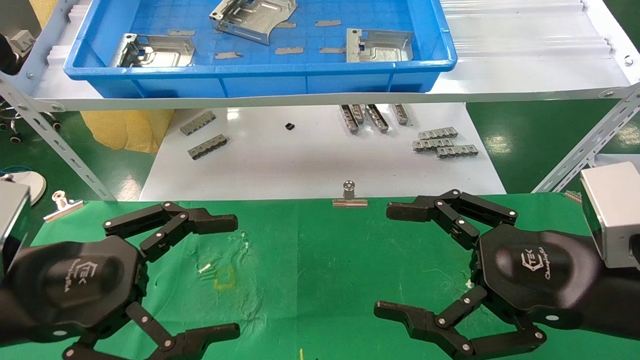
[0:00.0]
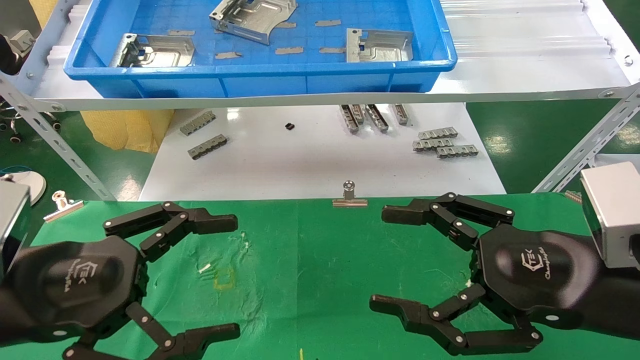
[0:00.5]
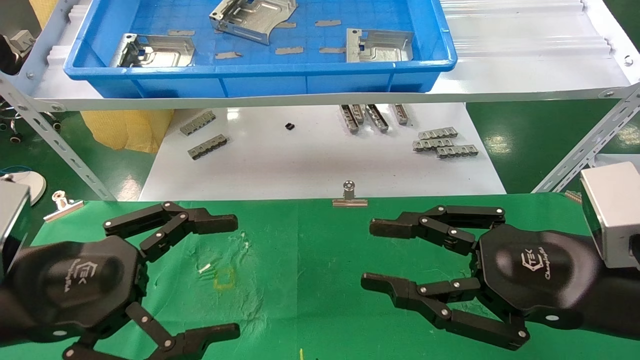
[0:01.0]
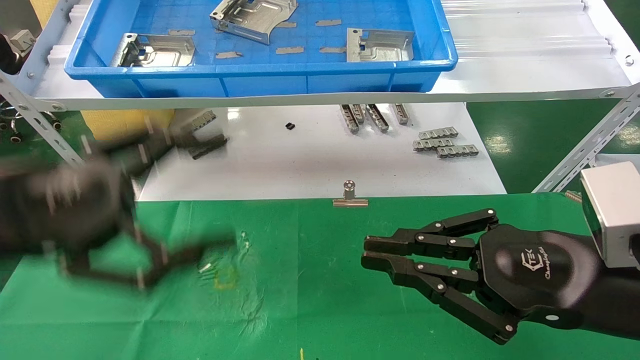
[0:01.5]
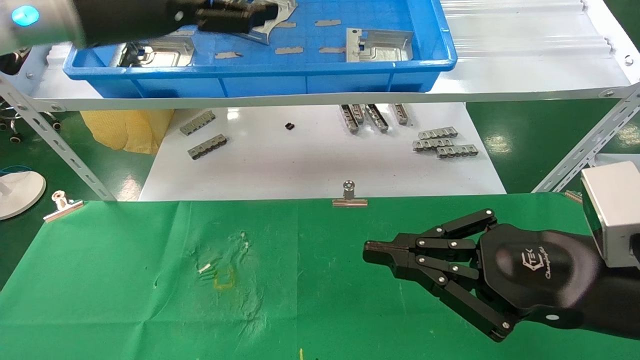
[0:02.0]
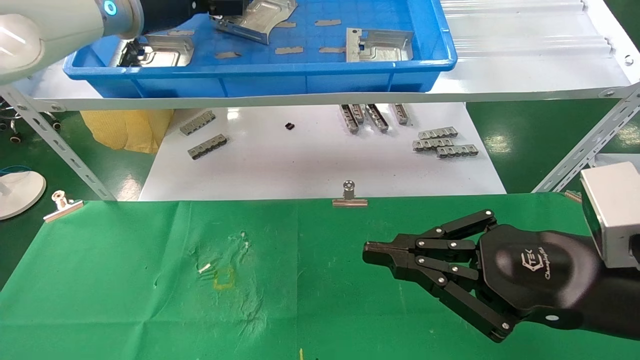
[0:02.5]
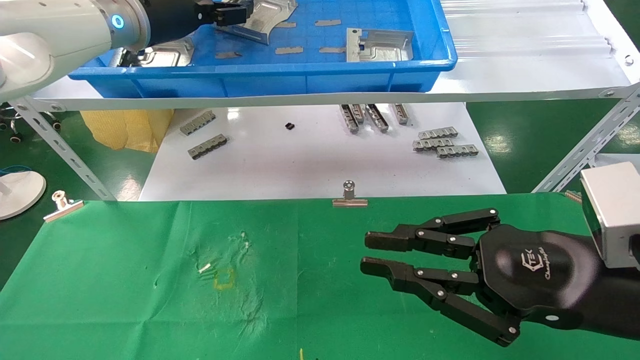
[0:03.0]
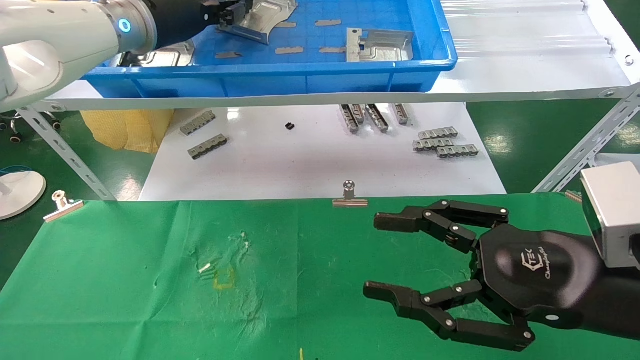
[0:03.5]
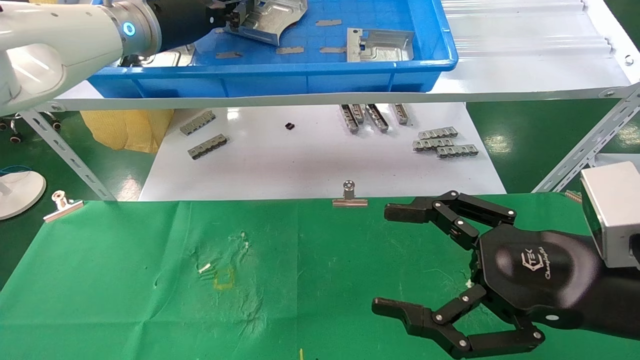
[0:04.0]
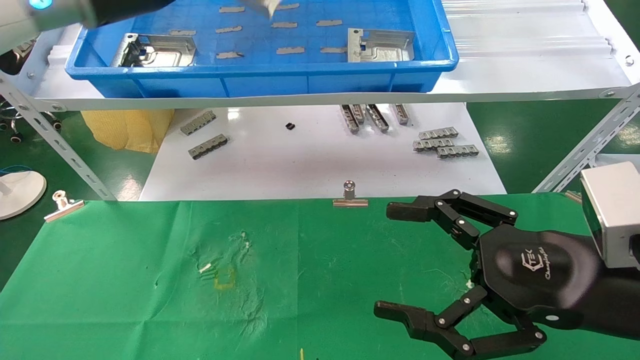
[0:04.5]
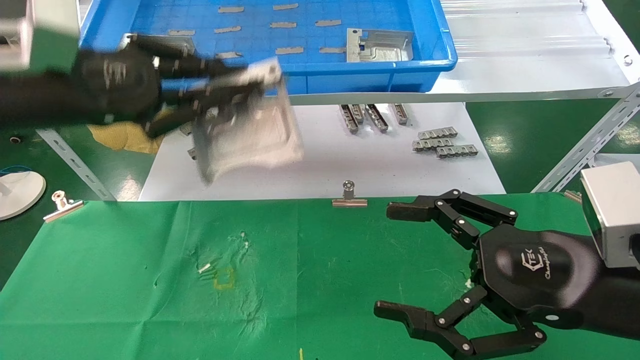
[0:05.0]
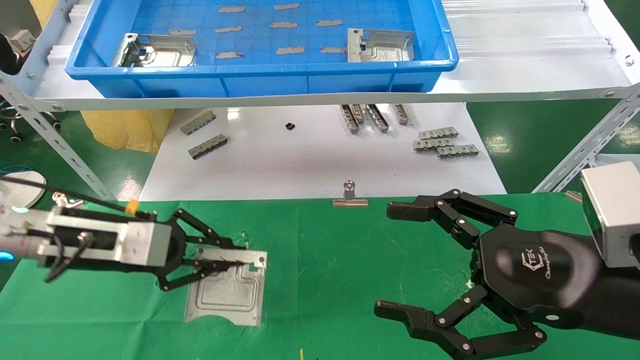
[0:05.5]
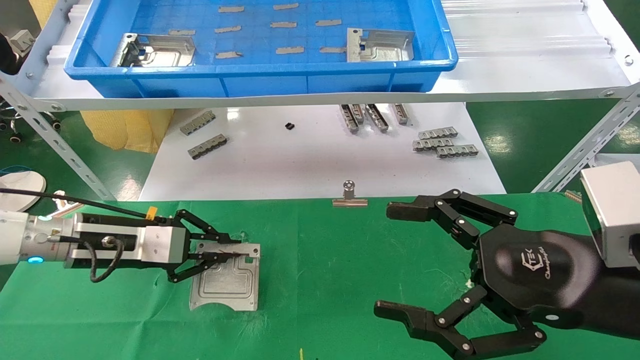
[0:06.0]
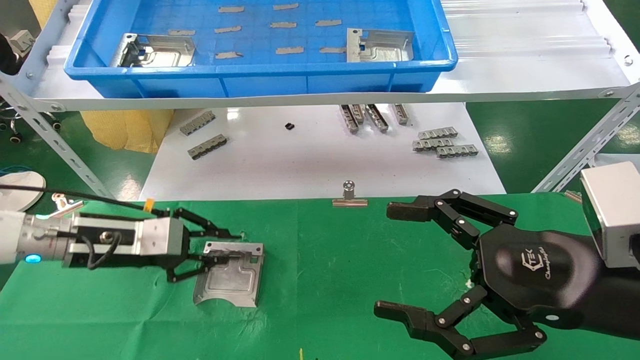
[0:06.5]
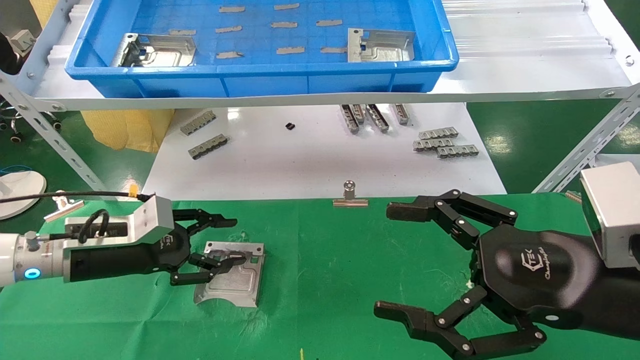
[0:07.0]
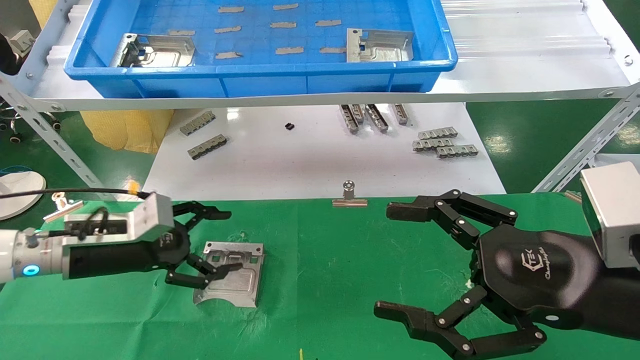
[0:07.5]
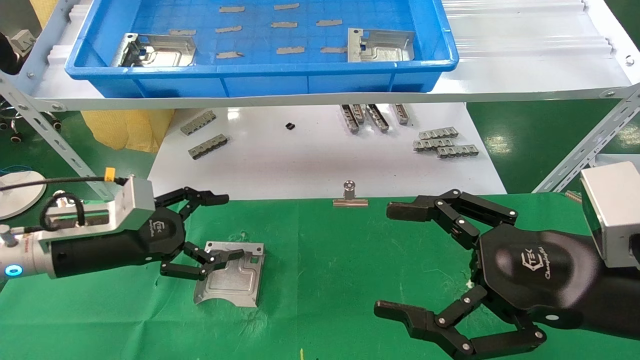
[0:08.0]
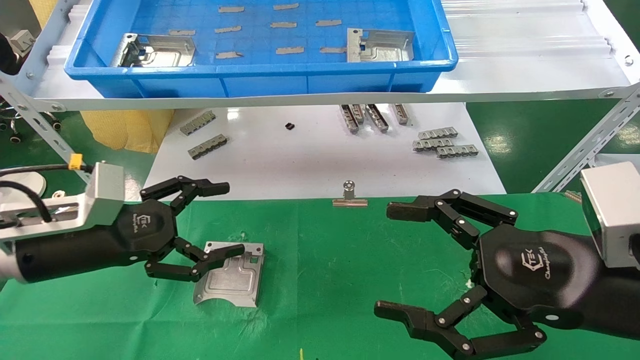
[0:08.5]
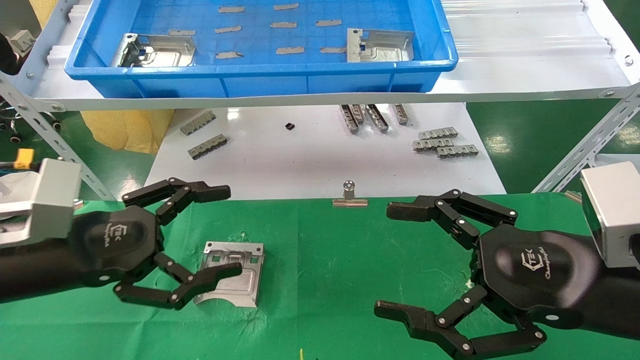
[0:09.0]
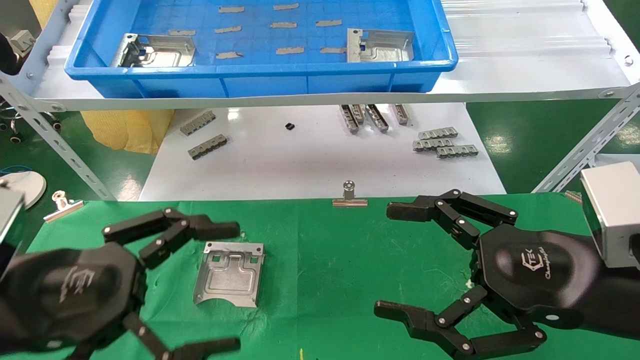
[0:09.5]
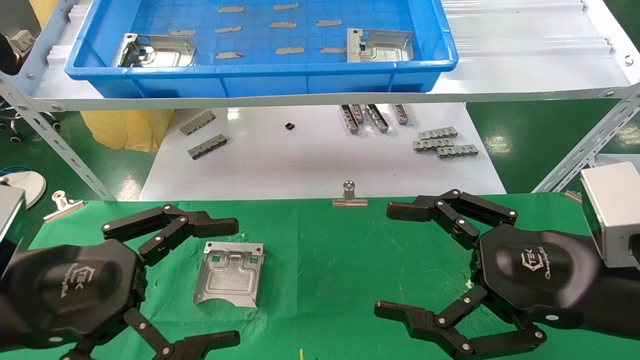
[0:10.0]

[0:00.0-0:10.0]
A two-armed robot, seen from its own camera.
Task of the whole recording: use the mechanical arm to pick up the parts and place them on the table.
Step, 0:02.0 to 0:03.5: Pick up the hard drive bracket from the feeding area.
Step, 0:04.0 to 0:07.0: Place the hard drive bracket into the box.
0:00.0 to 0:02.0: The right gripper closes up; the left gripper is displaced upward and forward by approximately 30 cm.
0:02.0 to 0:04.0: The right gripper opens. Meanwhile the left gripper is displaced forward by about 5 cm, and closes up.
0:04.0 to 0:06.0: The left gripper heads downward, covering some 25 cm.
0:06.0 to 0:08.0: The left gripper opens.
0:08.0 to 0:10.0: The left gripper is displaced backward by some 15 cm.

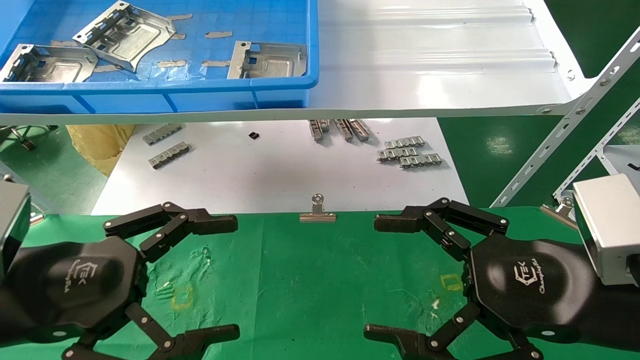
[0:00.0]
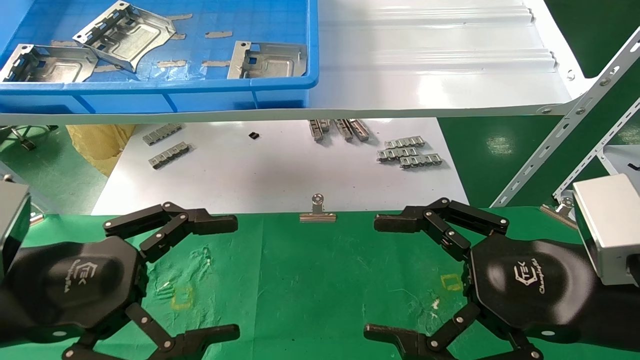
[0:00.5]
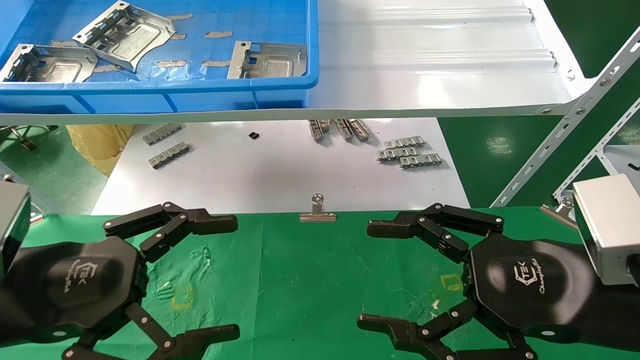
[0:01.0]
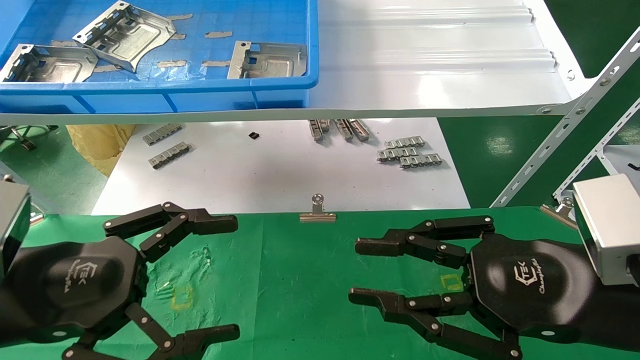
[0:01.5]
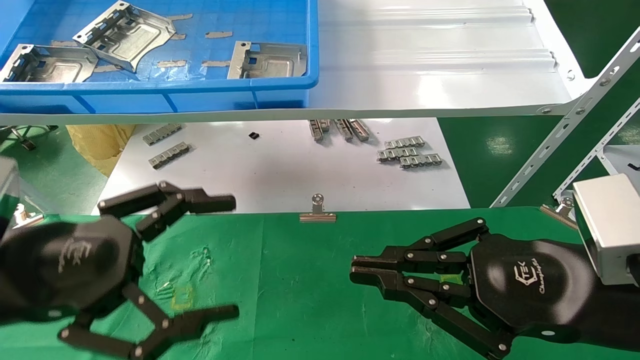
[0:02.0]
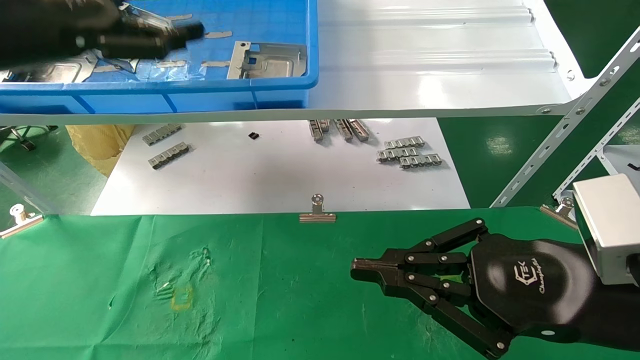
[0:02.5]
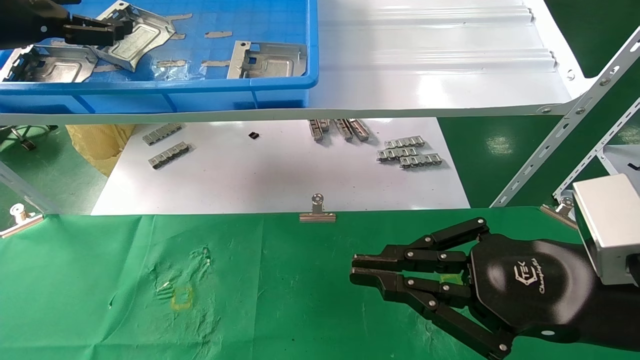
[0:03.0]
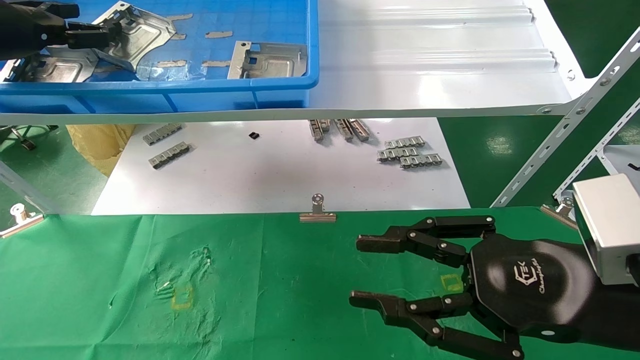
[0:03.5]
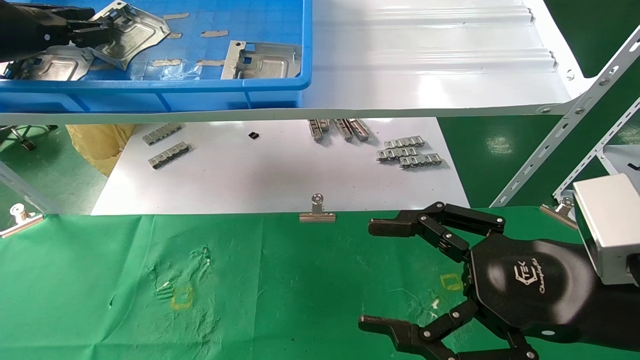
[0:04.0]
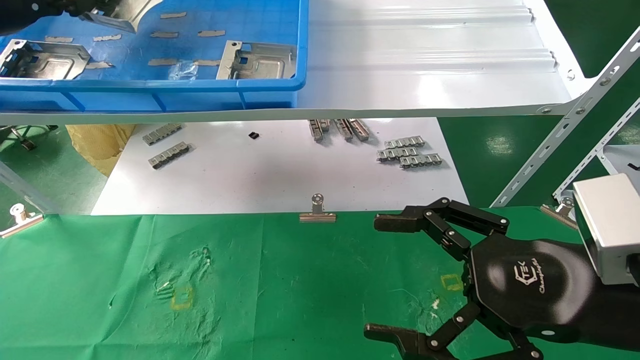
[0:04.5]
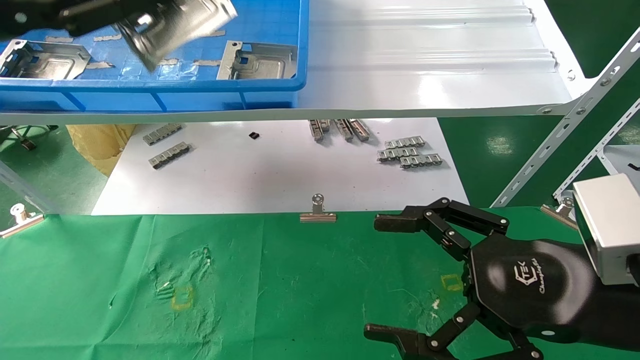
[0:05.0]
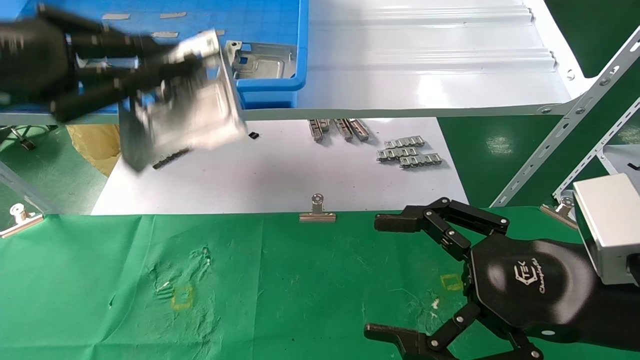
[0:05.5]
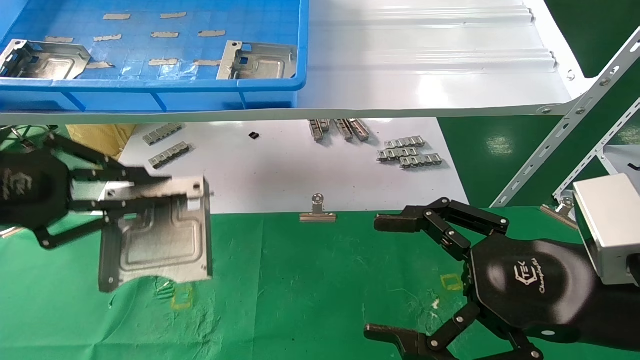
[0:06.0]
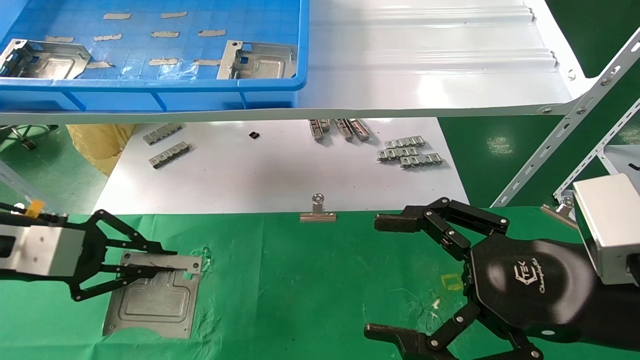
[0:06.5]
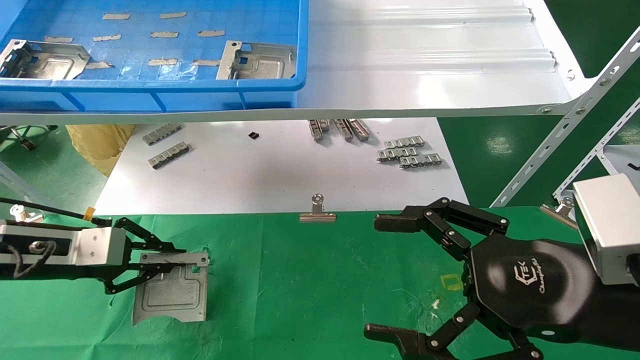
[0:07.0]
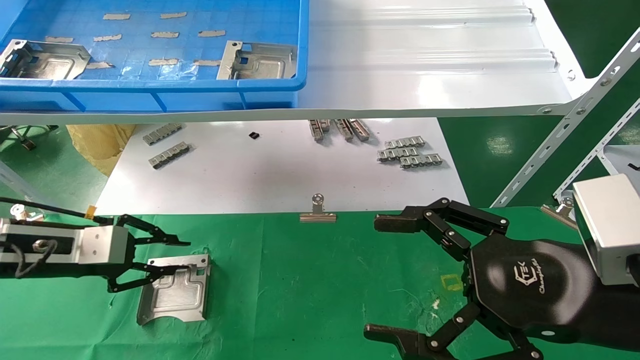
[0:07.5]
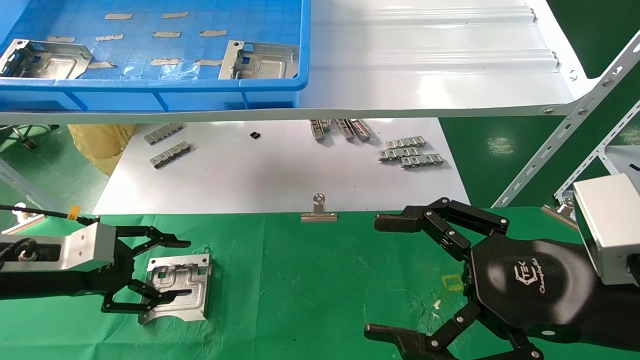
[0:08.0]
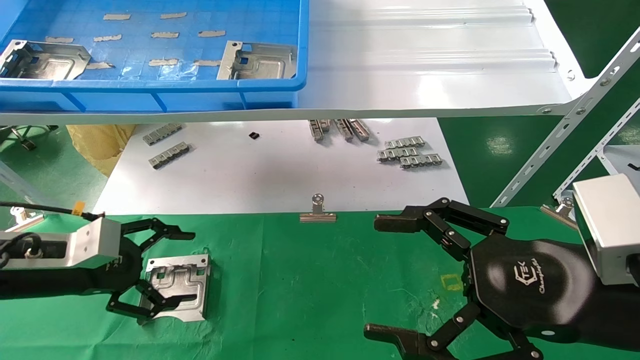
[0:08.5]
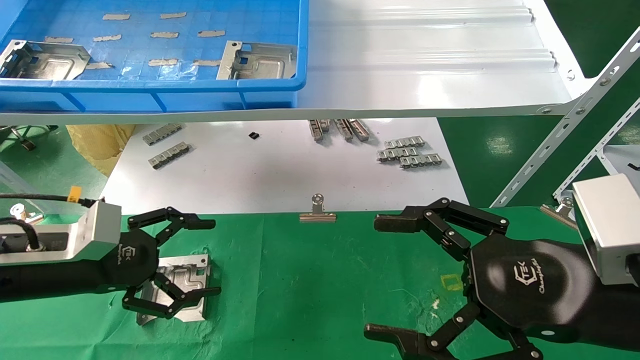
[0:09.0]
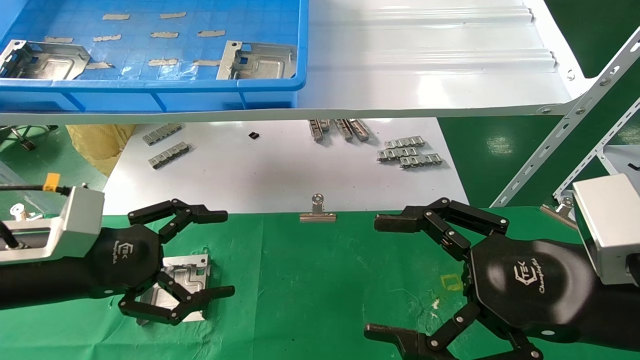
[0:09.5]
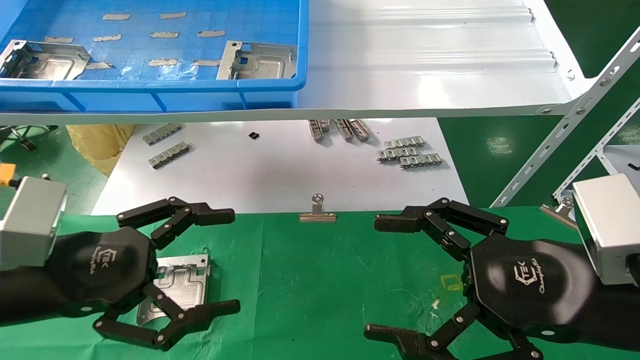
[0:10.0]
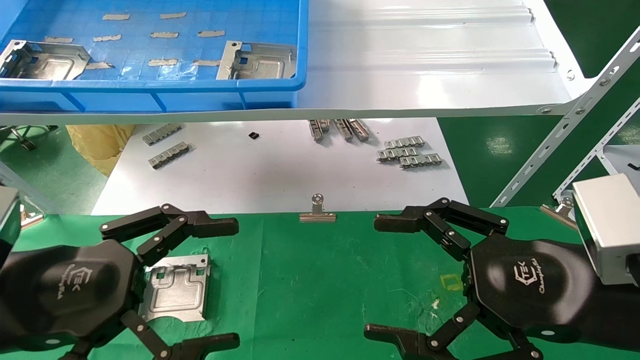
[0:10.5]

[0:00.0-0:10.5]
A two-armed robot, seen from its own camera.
Task of the whole recording: use the mechanical arm to pick up the parts and place them on the table.
Step, 0:02.5 to 0:04.0: Pick up the hard drive bracket from the feeding area.
Step, 0:04.5 to 0:07.0: Place the hard drive bracket into the box.
0:00.0 to 0:02.0: The right gripper closes.
0:02.0 to 0:04.0: The left gripper travels forward, upward and to the left by roughly 30 cm, and closes; the right gripper opens up.
0:04.0 to 0:06.5: The left gripper goes roughly 20 cm downward and backward.
0:06.5 to 0:08.5: The left gripper is displaced downward by some 5 cm, and opens its fingers.
0:08.5 to 0:10.5: The left gripper is displaced backward and to the right by approximately 15 cm.
